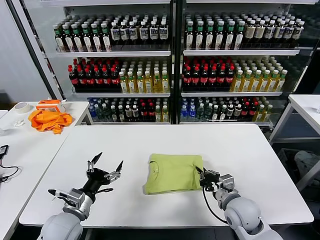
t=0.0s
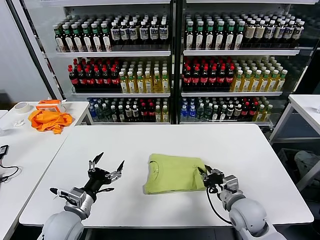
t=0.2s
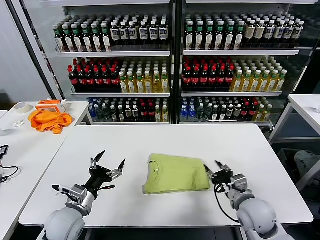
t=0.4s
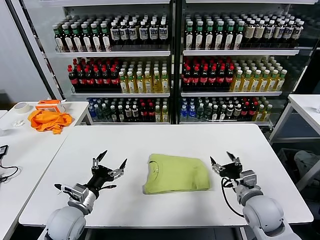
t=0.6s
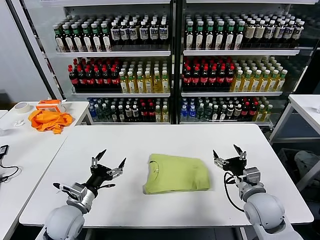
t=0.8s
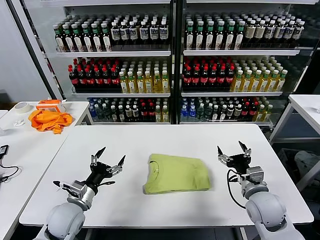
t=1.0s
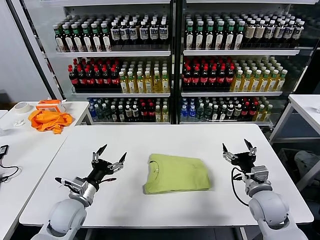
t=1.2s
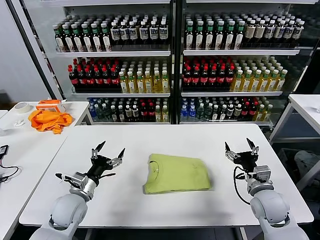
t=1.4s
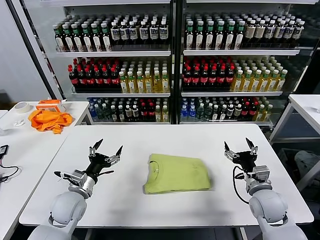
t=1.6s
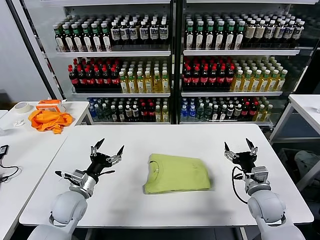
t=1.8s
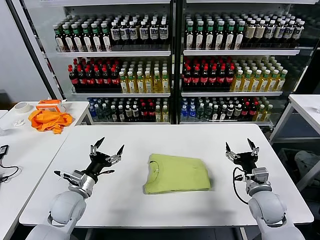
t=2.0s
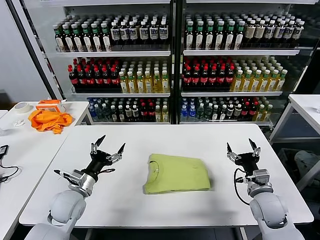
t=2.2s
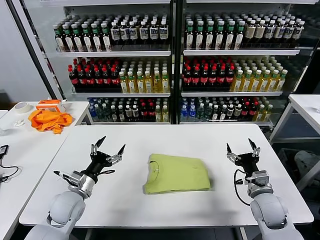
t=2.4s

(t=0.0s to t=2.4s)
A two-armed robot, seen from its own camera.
Task of the whole recording: fold and organize the clothes.
t=0.0s - t=1.2s: The right gripper travels to the right by roughly 5 cm, and opens.
t=1.2s - t=2.4s: The grippers make only small movements.

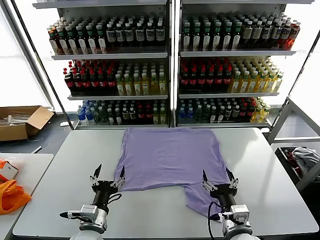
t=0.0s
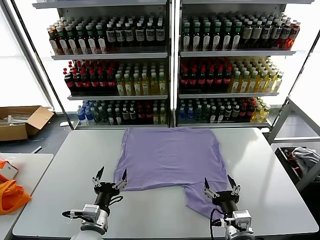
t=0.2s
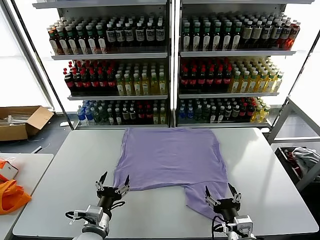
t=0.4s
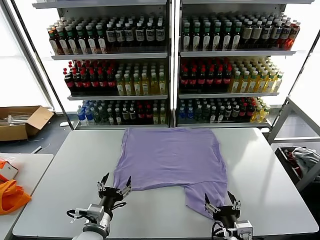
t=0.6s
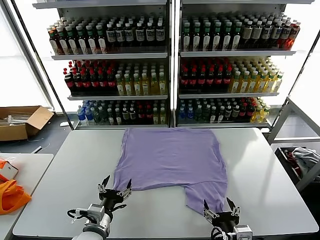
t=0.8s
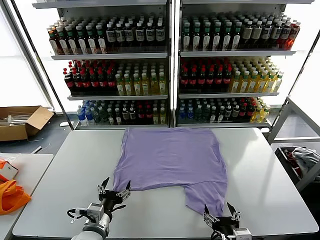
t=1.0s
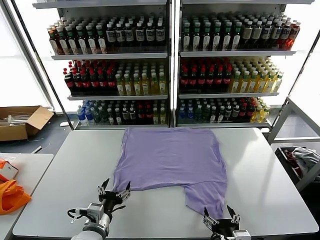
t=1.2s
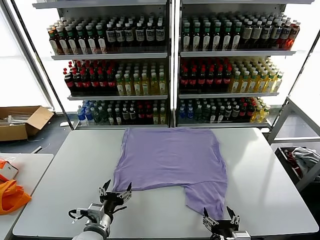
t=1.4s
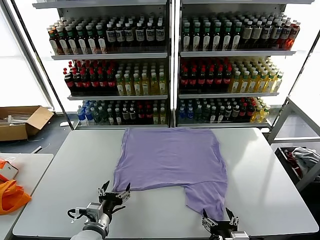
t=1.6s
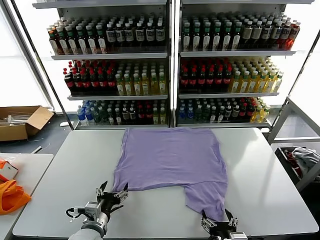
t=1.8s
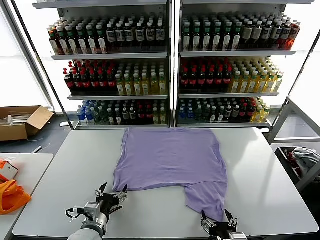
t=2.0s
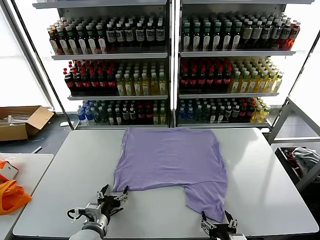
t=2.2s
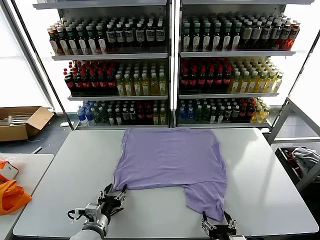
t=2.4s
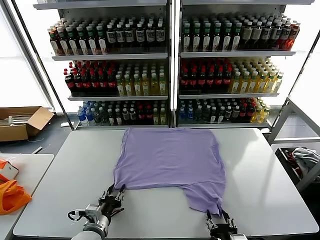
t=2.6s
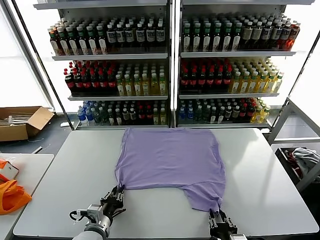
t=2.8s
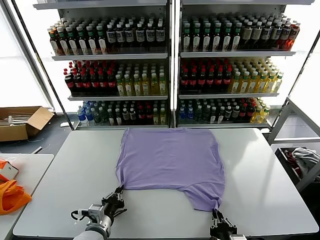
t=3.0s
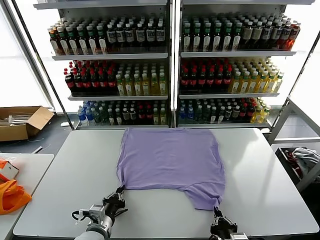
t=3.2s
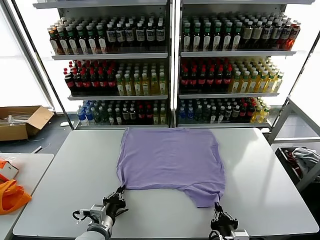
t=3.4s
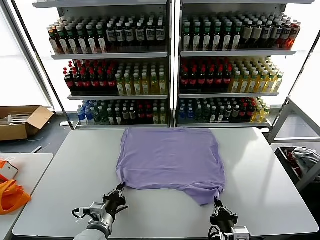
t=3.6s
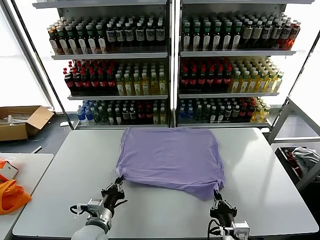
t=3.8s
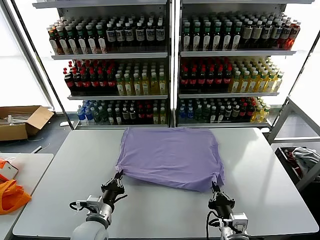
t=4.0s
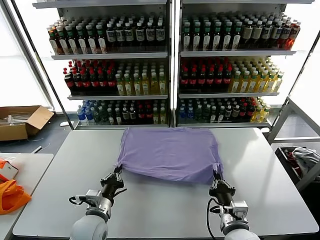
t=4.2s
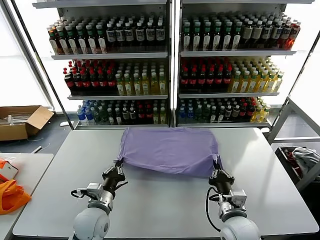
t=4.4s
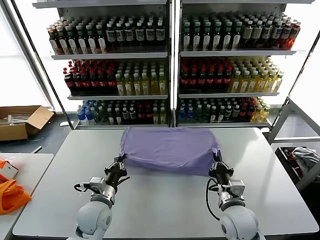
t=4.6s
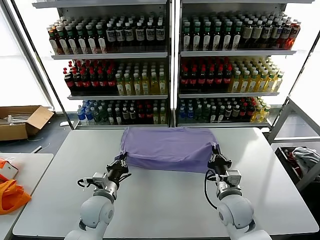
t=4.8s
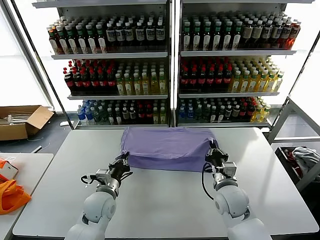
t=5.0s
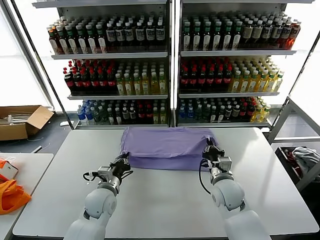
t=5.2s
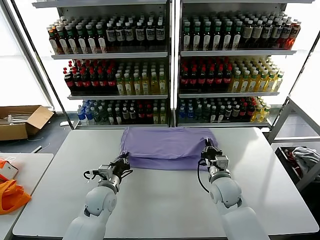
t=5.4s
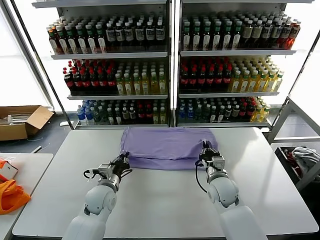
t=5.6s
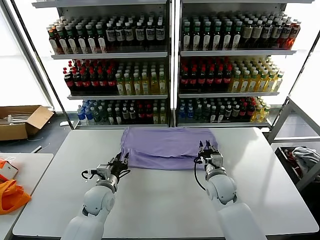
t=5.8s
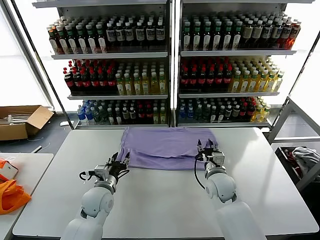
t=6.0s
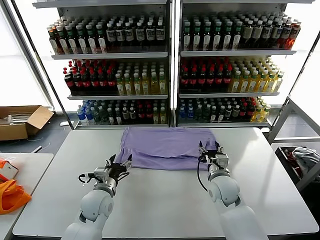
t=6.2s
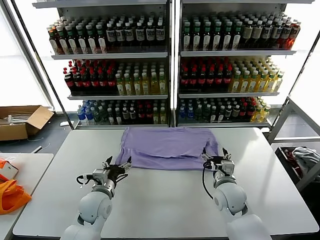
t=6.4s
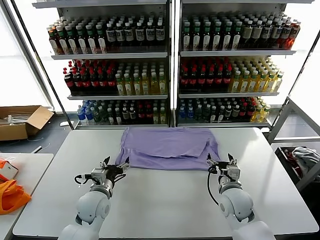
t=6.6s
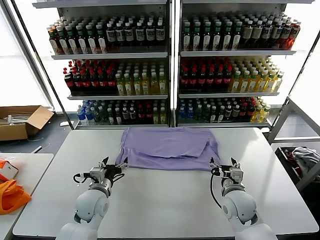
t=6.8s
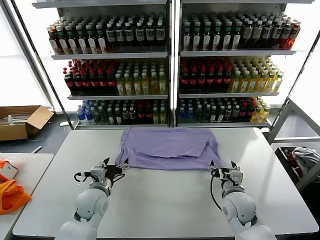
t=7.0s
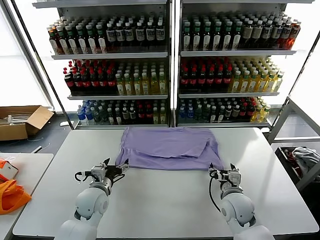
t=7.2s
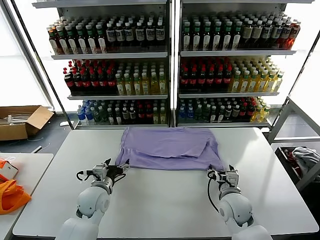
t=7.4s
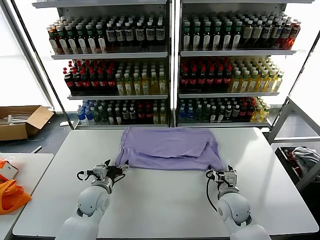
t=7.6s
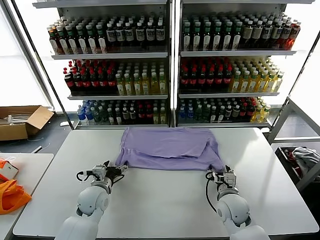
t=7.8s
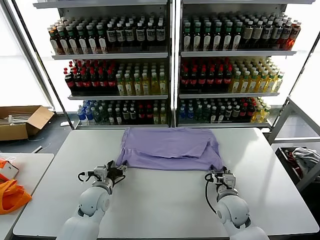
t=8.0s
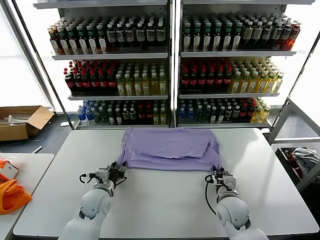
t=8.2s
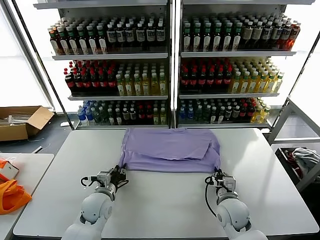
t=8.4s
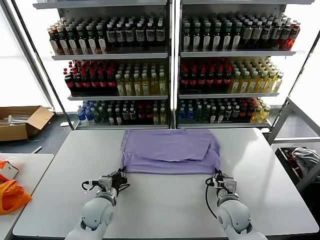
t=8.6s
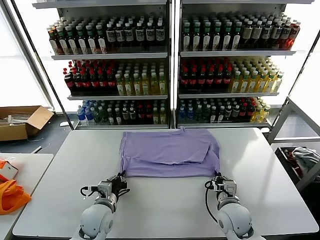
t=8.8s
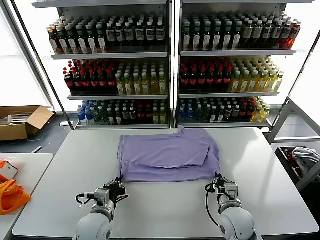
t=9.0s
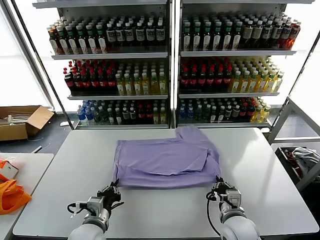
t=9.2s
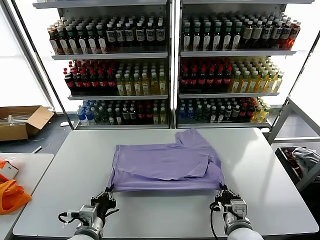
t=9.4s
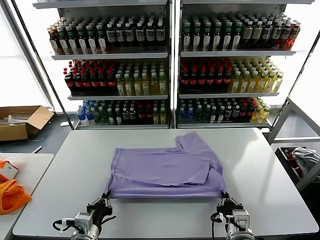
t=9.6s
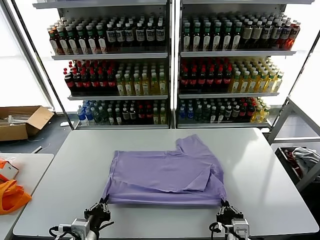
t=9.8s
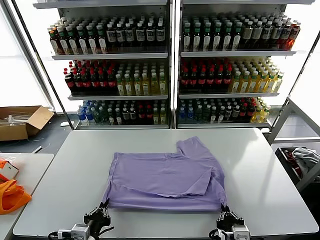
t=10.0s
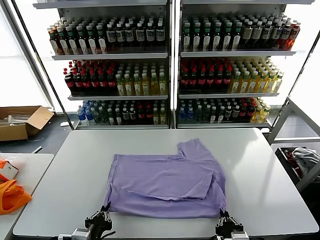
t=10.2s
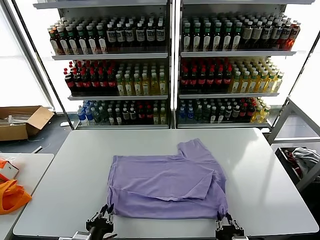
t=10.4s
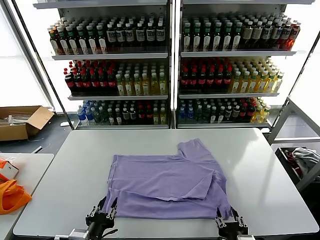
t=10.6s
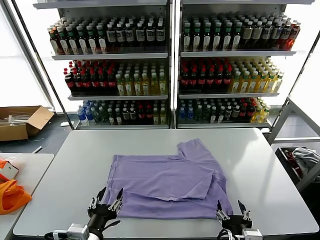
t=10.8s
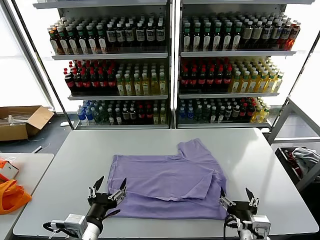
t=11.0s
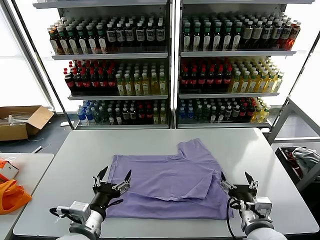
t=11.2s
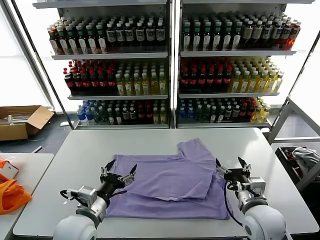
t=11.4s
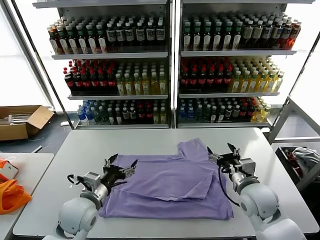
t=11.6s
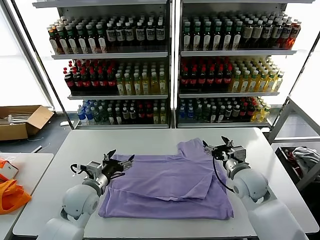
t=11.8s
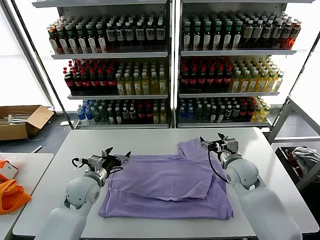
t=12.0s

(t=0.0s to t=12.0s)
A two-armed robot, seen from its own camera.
Task of the whole recording: fold and organize the clothes.
Step, t=0.0s - t=3.6s: use both grippers simultaneously to clamp the lower edge of the clothing fabric.
Step, t=3.8s - t=6.0s: use both grippers to drag the lower edge of the fabric forward and fold it over the upper edge.
Step, t=6.2s - t=10.6s: Drag the clothes downward with both gripper.
t=1.6s - t=3.0s: The left gripper closes up. Meanwhile the right gripper closes.
t=3.0s - t=4.4s: The left gripper shifts about 5 cm forward. The right gripper goes some 15 cm forward.
t=4.4s - t=6.0s: The left gripper heads forward, covering roughly 10 cm, and opens up; the right gripper heads forward, covering approximately 15 cm, and opens up.
t=6.0s - t=7.6s: The left gripper opens; the right gripper goes roughly 5 cm backward.
t=7.6s - t=9.0s: The two grippers go about 10 cm backward. The right gripper closes its fingers. Meanwhile the left gripper closes.
t=9.0s - t=10.4s: Both grippers travel together backward, approximately 15 cm. The right gripper opens its fingers.
t=10.4s - t=12.0s: The two grippers go roughly 30 cm forward. The left gripper opens its fingers, while the right gripper opens up.

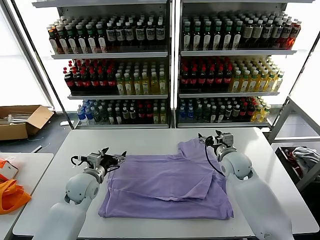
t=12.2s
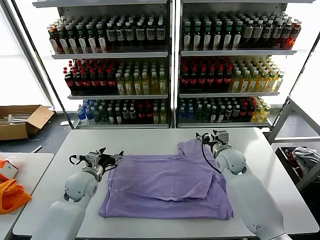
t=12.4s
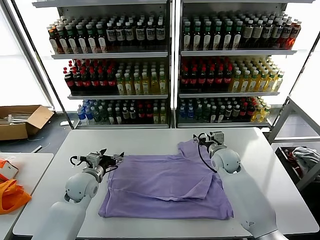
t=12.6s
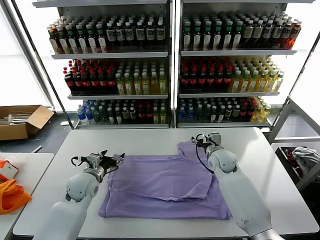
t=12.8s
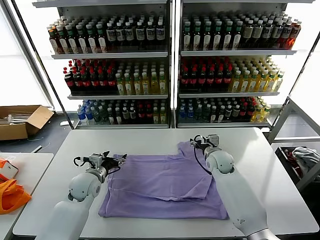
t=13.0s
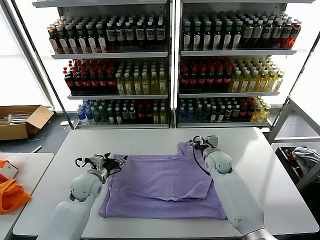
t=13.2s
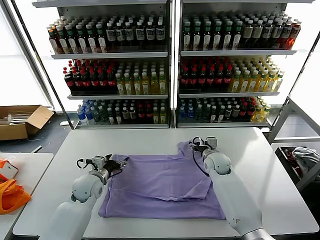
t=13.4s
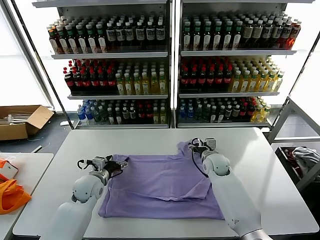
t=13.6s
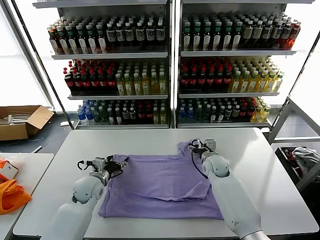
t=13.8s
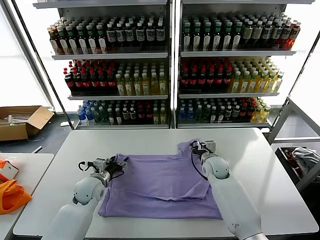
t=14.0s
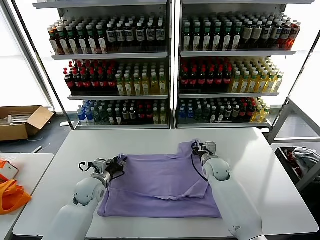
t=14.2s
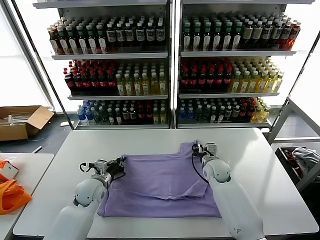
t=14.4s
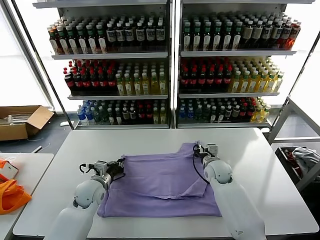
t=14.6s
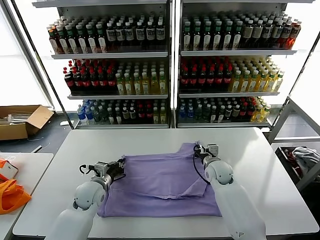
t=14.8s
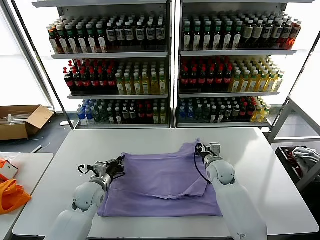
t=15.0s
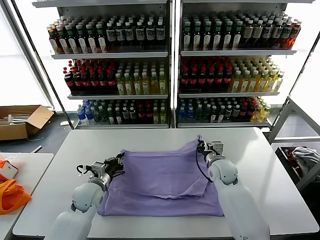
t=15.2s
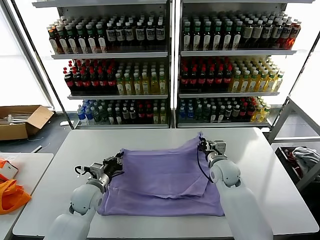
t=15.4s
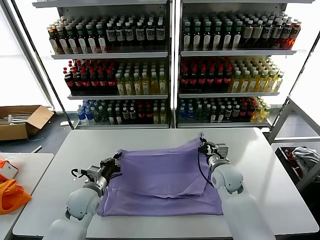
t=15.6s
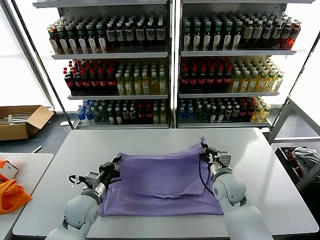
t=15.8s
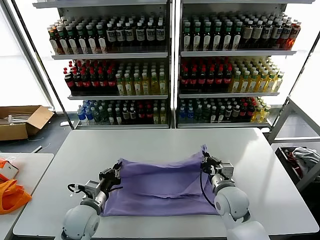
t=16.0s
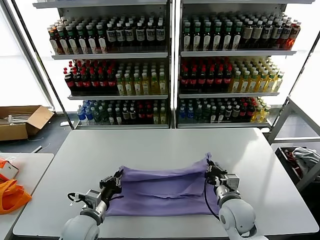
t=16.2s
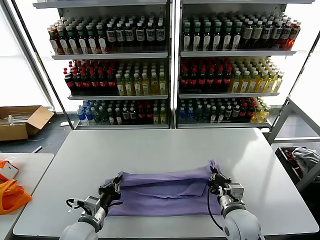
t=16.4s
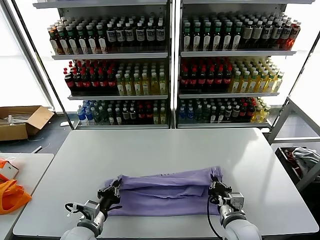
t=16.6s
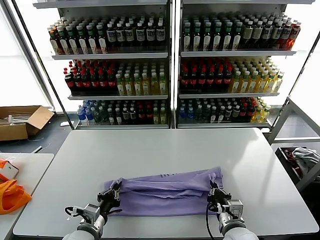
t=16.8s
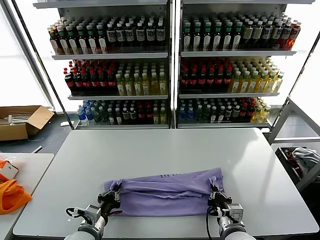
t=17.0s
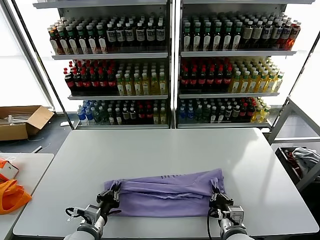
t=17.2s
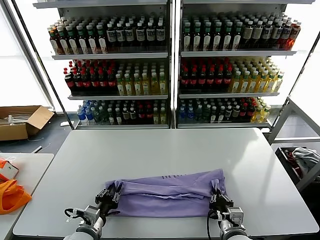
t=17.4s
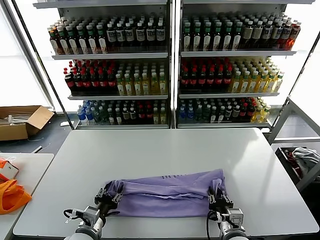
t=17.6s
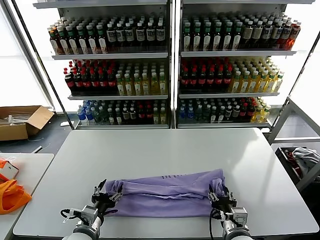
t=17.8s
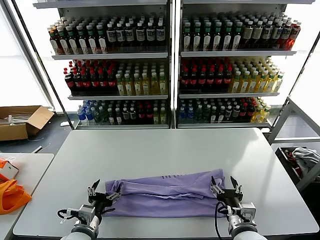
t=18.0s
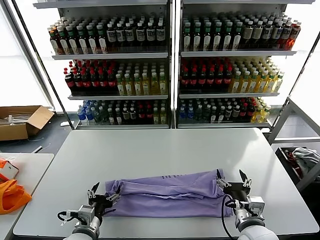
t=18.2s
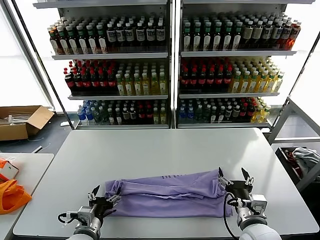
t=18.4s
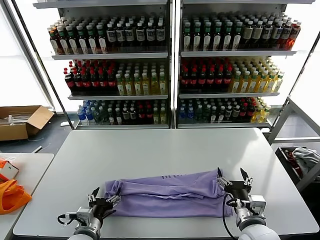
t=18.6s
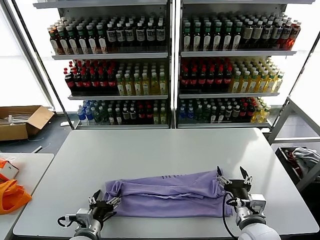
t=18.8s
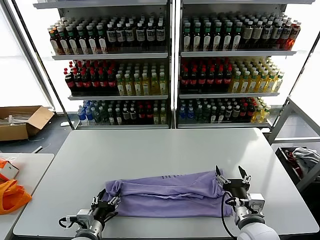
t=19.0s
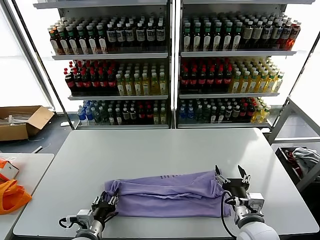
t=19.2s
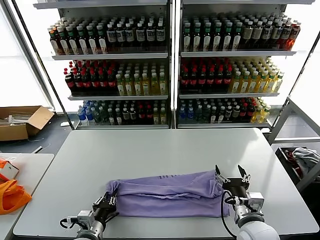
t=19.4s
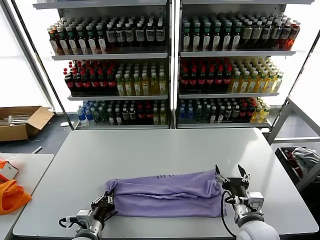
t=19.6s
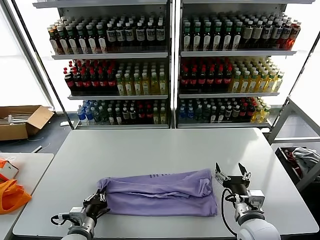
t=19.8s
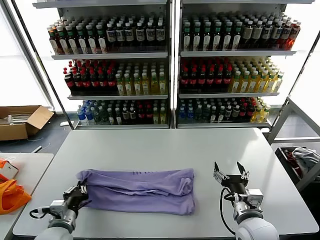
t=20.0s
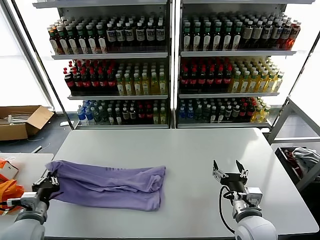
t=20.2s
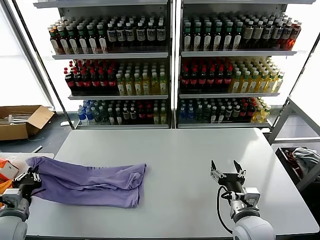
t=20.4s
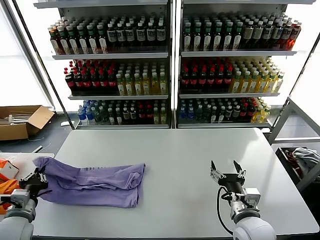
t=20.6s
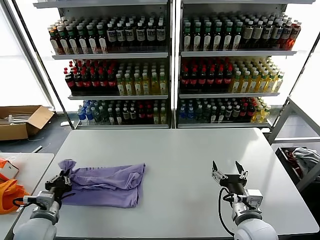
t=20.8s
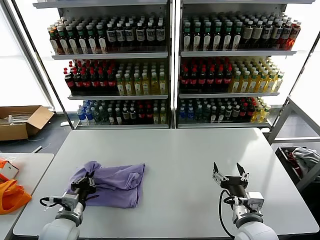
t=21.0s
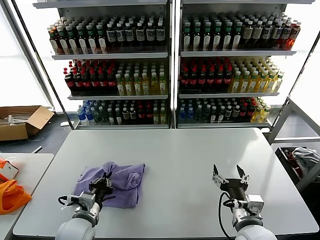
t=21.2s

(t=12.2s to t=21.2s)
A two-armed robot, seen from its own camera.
Task of the whole recording: fold and organize the clothes.
Step, t=12.2s - t=14.6s: use both grippers simultaneously to clamp the upper edge of the clothing fabric.
Step, t=14.8s - t=17.6s: use both grippers to drag the upper edge of the fabric backward and fold it over the lower edge.
Step, t=17.8s - t=19.6s: use the left gripper to clamp the left edge of the fabric.
t=12.2s - t=13.8s: The right gripper moves downward, approximately 5 cm.
t=13.8s - t=15.2s: The right gripper ends up some 5 cm from where it was, and closes. The left gripper closes up.
t=15.2s - t=16.6s: The grippers both shift backward by about 20 cm.
t=16.6s - t=18.2s: The left gripper opens; the right gripper changes place by roughly 5 cm, and opens up.
t=18.2s - t=19.8s: The left gripper closes up.
t=19.8s - t=21.2s: The left gripper travels to the left and back again, approximately 20 cm each way.
